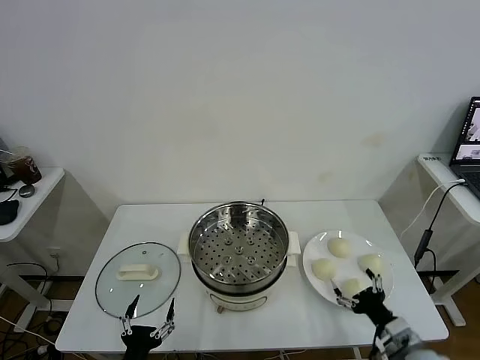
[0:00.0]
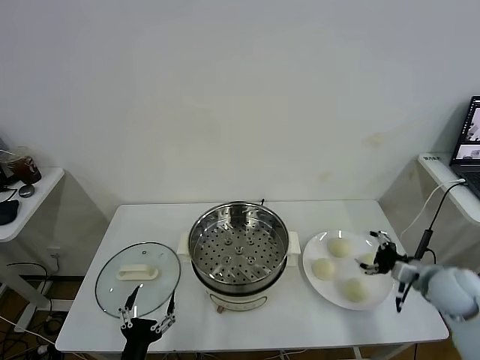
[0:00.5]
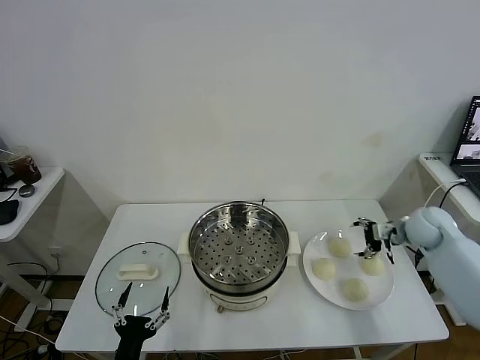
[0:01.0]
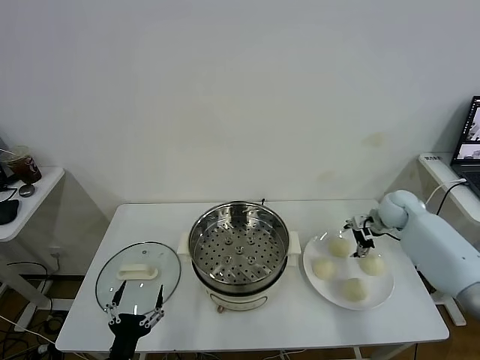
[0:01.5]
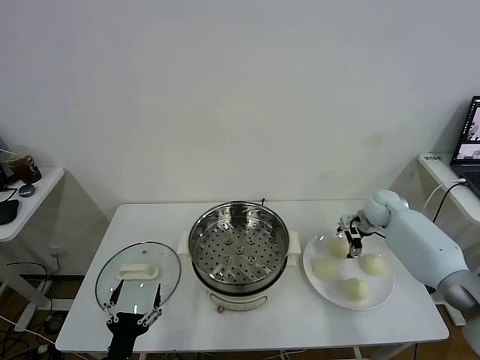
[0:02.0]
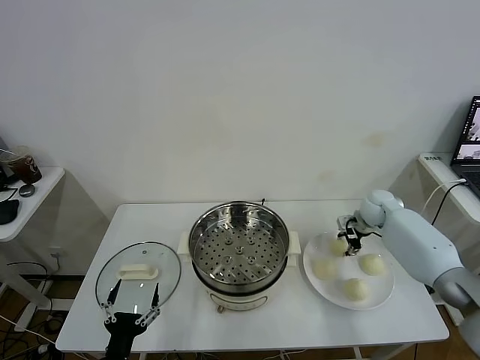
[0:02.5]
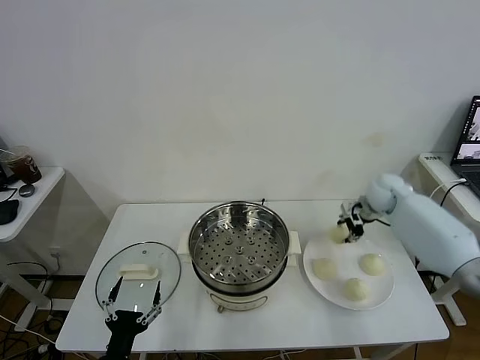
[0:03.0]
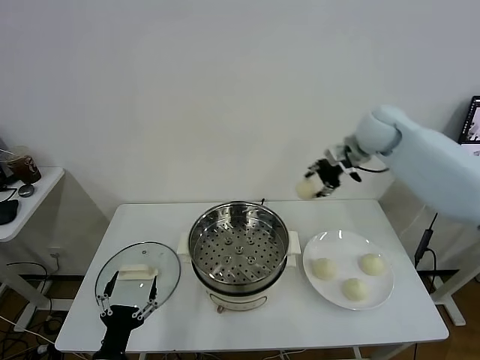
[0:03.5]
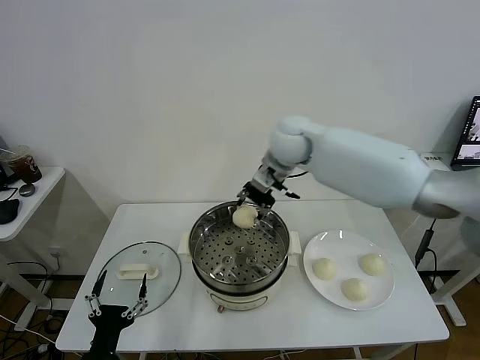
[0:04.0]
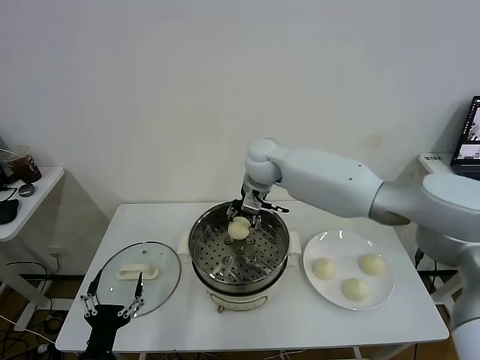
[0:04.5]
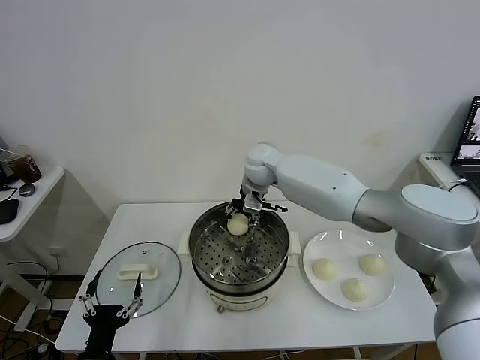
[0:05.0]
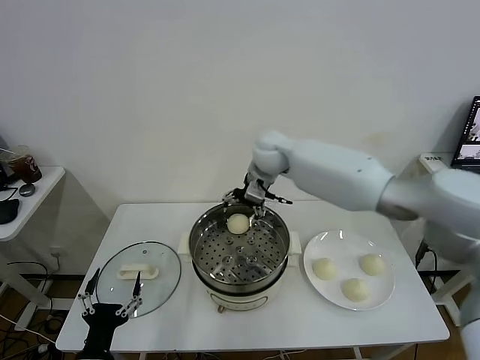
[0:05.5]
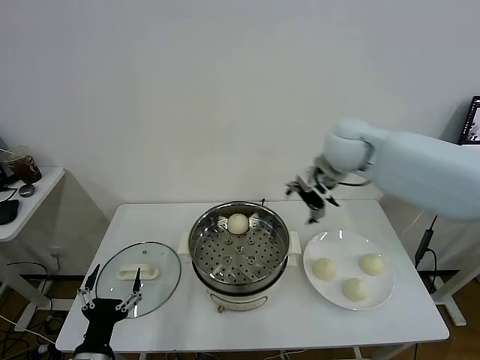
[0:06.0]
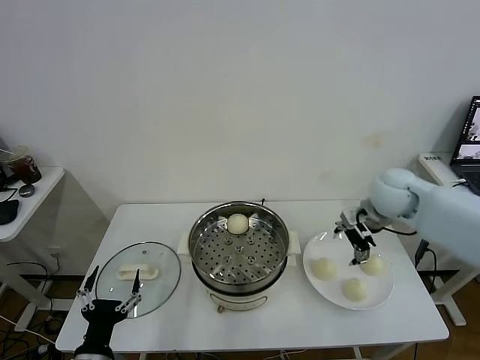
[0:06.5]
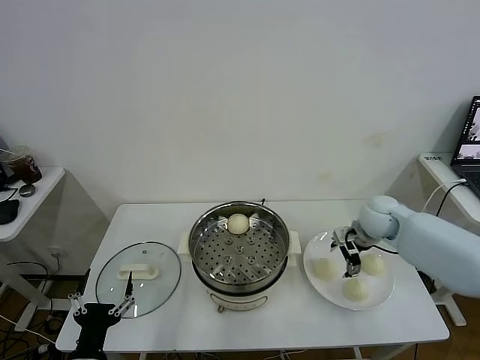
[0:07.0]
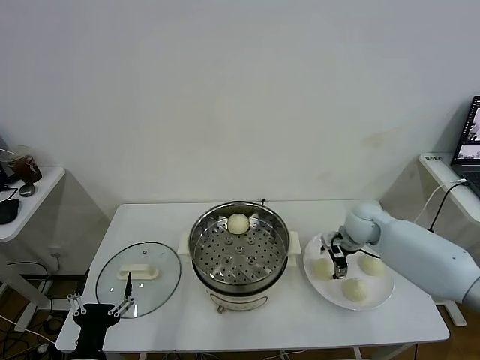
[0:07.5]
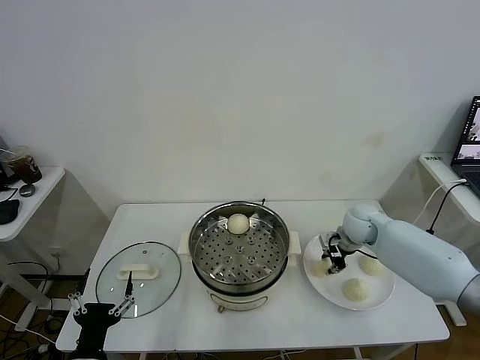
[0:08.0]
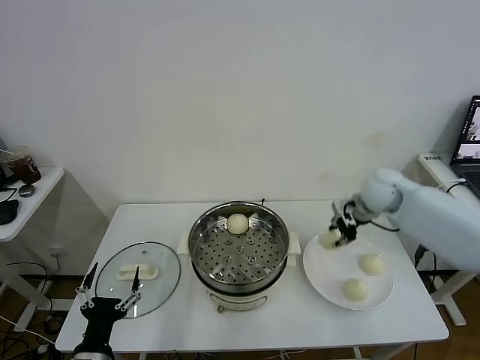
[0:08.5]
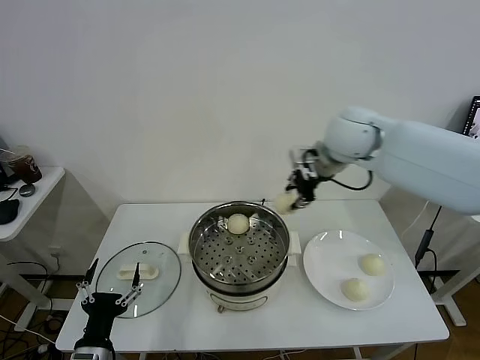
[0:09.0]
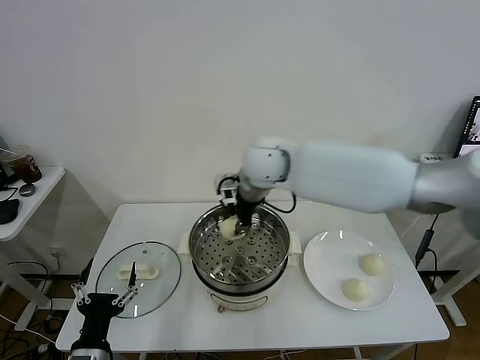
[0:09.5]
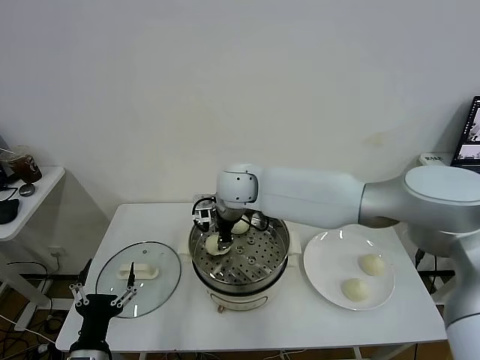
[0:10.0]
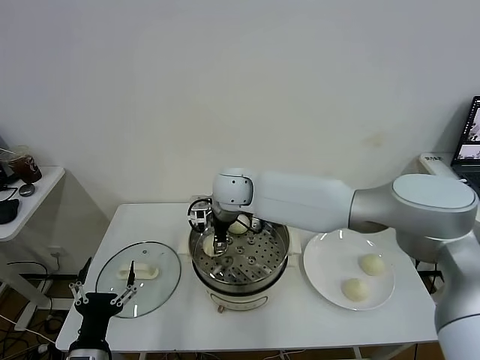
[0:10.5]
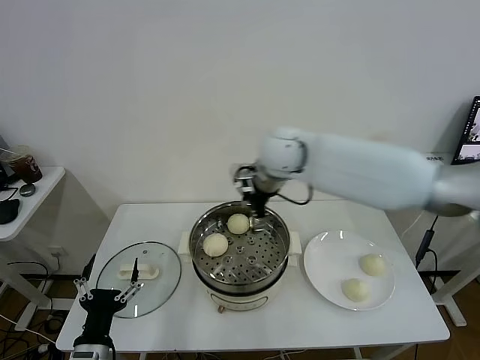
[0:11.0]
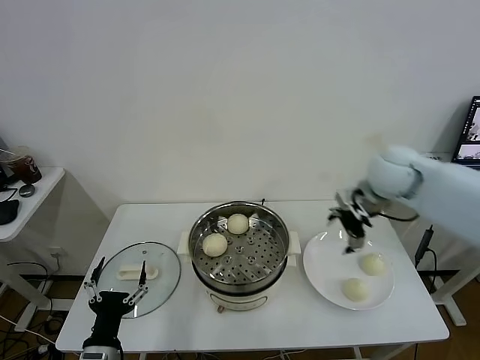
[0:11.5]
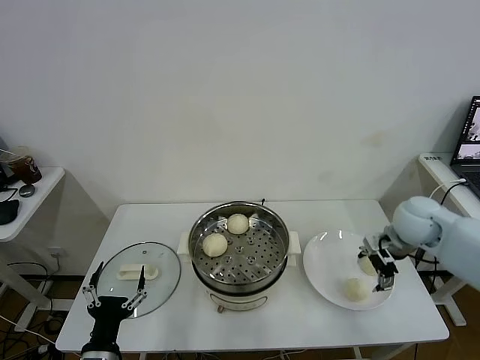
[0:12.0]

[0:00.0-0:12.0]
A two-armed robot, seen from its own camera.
Task of the whole recording: take steamed baozi put them in steamer.
Step, 0:00.0 to 0:02.0: Grasp the baozi in the plate with right gripper.
Step, 0:02.5 to 0:05.0: Place the baozi on the steamer with right gripper.
Step, 0:05.5 to 0:07.5: Grasp the baozi in the plate with right gripper.
Step, 0:08.0 to 0:10.5: Place the baozi on the steamer with right gripper.
0:02.0 to 0:04.0: The right gripper goes some 35 cm to the left and upward, and closes up.
0:04.0 to 0:06.0: The right gripper moves to the right, about 10 cm, and opens.
0:06.0 to 0:08.0: The right gripper moves downward and to the right, about 25 cm, and closes its fingers.
0:08.0 to 0:10.0: The right gripper is displaced to the left and upward by approximately 35 cm.
0:10.0 to 0:12.0: The right gripper travels to the right by some 40 cm, and opens its fingers.

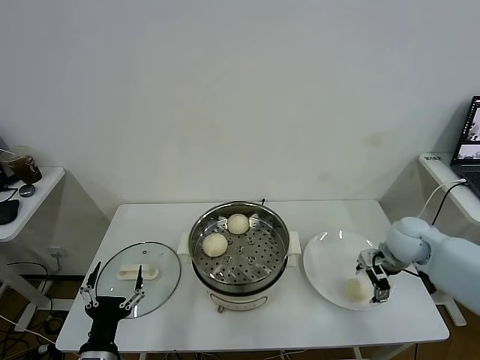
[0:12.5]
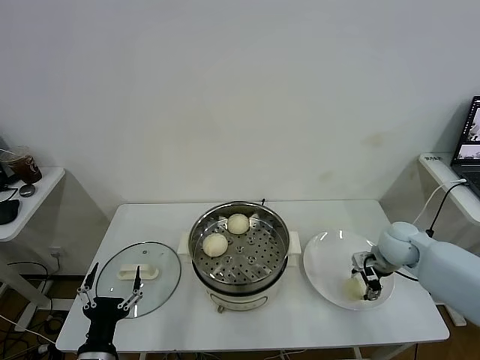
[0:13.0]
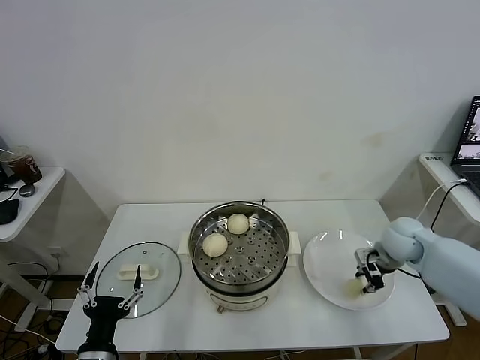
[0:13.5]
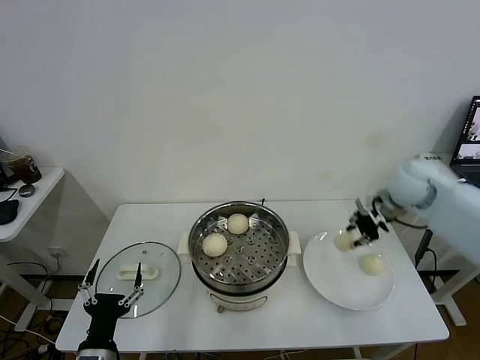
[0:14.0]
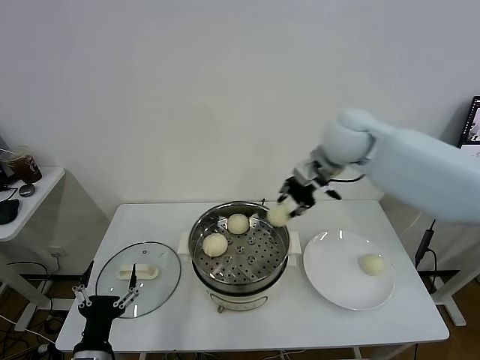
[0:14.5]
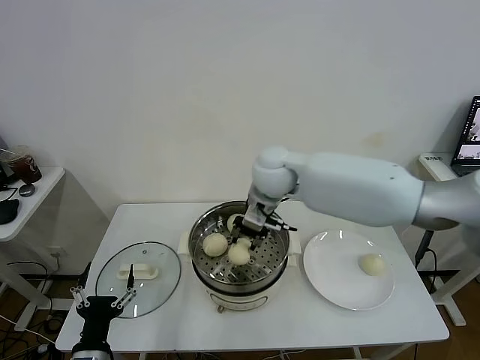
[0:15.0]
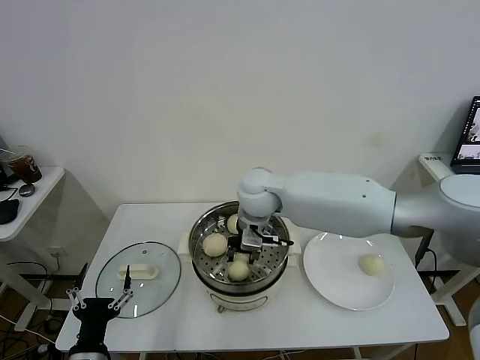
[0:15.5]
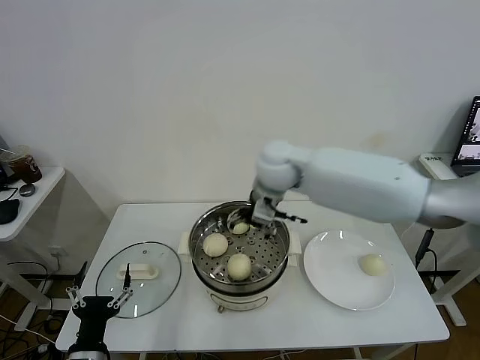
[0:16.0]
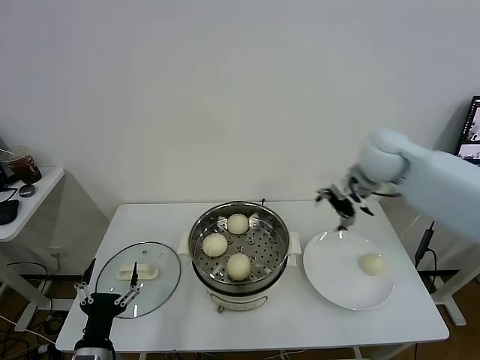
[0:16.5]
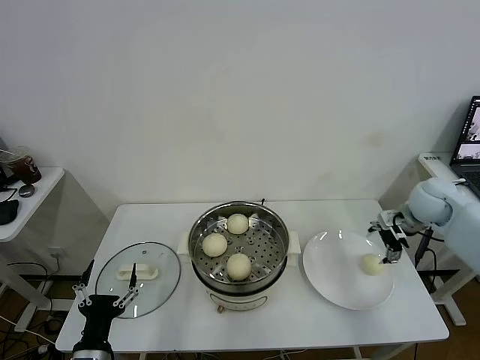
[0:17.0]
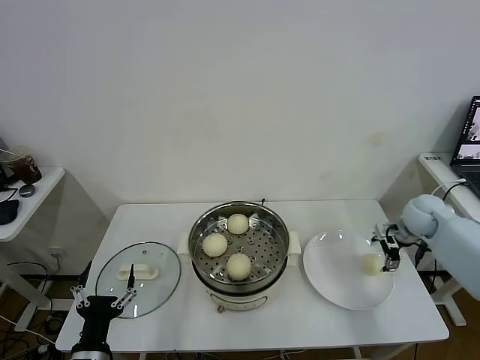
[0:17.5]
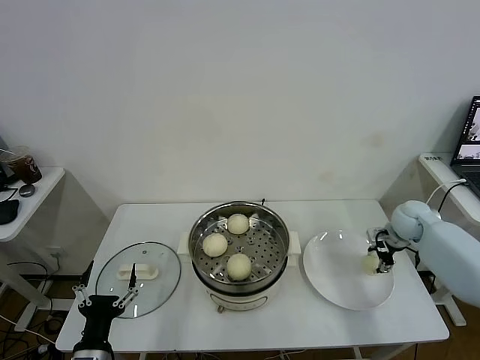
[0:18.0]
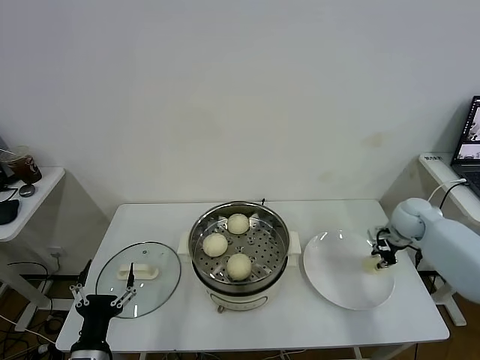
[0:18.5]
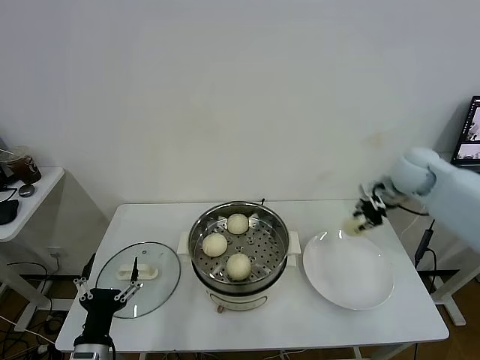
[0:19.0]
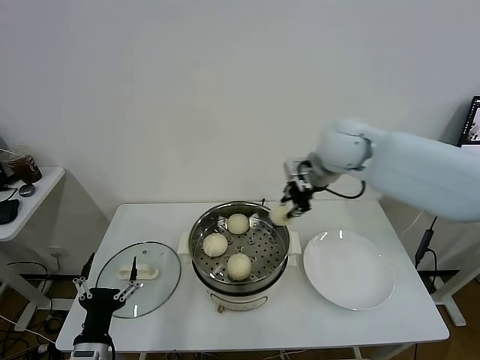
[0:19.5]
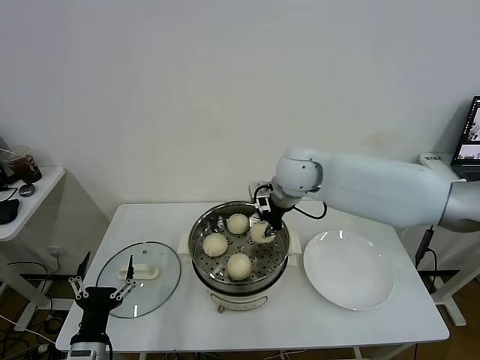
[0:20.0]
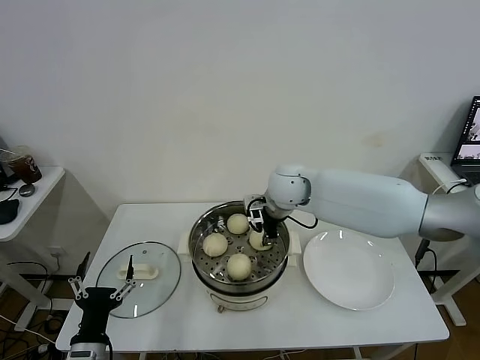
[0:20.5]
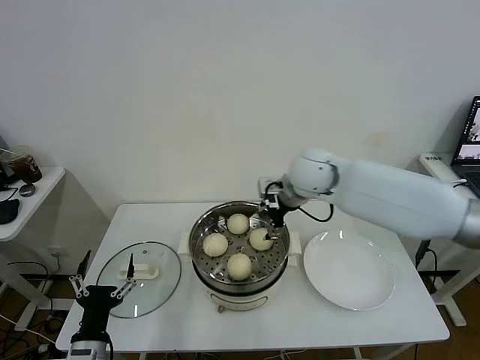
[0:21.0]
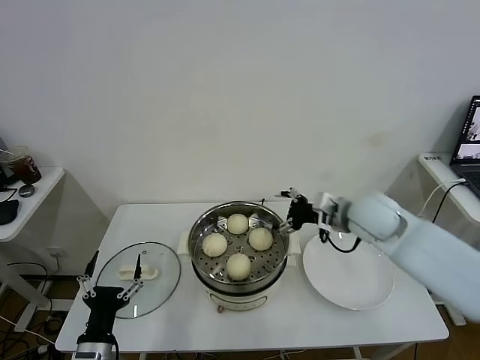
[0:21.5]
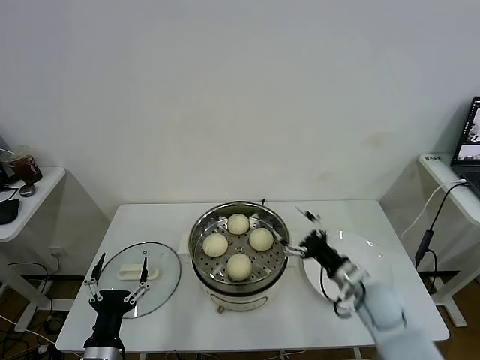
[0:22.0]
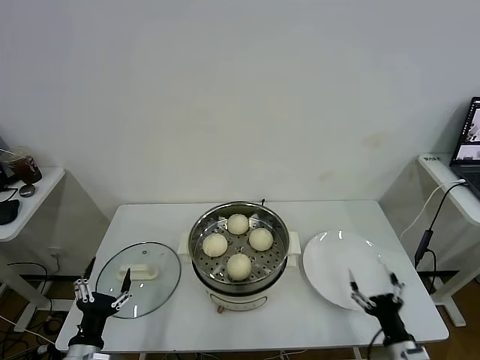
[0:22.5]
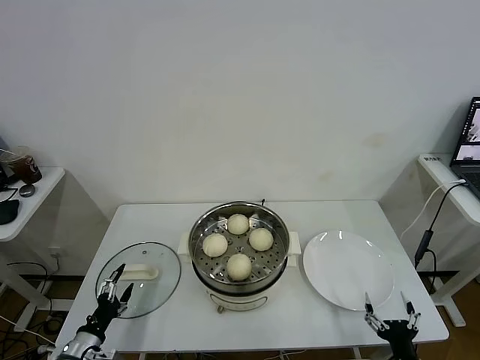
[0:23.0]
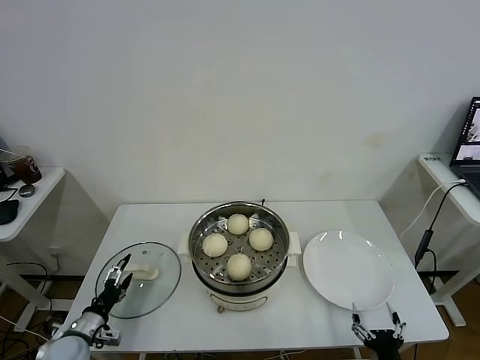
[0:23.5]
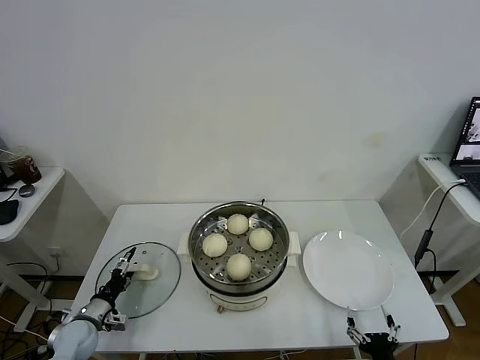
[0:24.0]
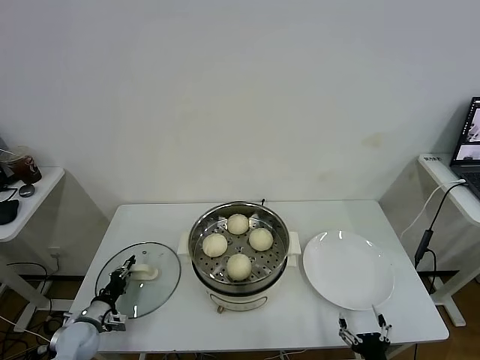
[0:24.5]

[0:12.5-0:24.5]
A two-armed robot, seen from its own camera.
Task of the whole recording: take steamed baozi put them in steamer.
Step, 0:13.5 to 0:15.5: Place the baozi on the steamer with right gripper.
Step, 0:16.0 to 0:18.0: Grasp the baozi in the plate with right gripper.
Step, 0:18.5 to 0:20.5: Place the baozi on the steamer with right gripper.
0:12.5 to 0:14.5: The right gripper moves upward and to the left, some 30 cm, and closes.
0:14.5 to 0:16.5: The right gripper reaches about 15 cm to the left, then returns, and opens up.
0:16.5 to 0:18.5: The right gripper goes roughly 25 cm downward and to the right, and closes up.
0:18.5 to 0:20.5: The right gripper is displaced to the left by roughly 35 cm.
0:20.5 to 0:22.5: The right gripper shifts roughly 50 cm backward, downward and to the right, and opens up.
0:22.5 to 0:24.5: The left gripper heads forward, downward and to the left, covering approximately 20 cm, and closes up; the right gripper shifts about 10 cm backward.

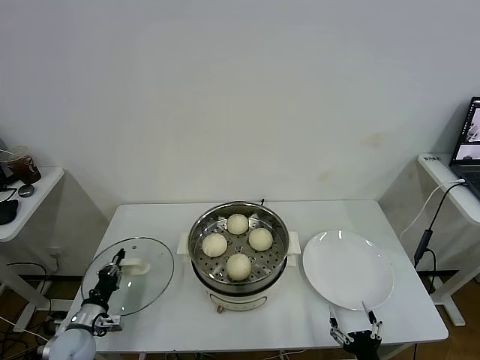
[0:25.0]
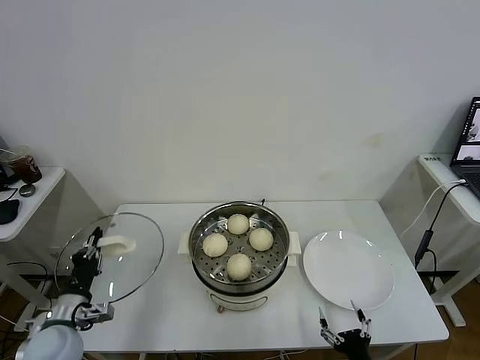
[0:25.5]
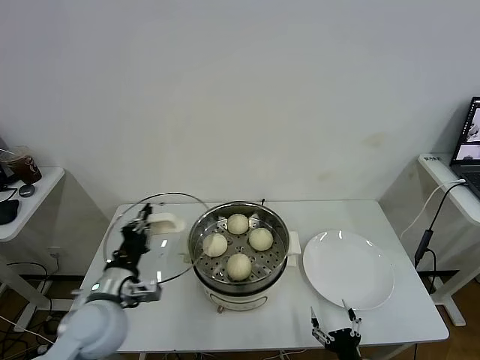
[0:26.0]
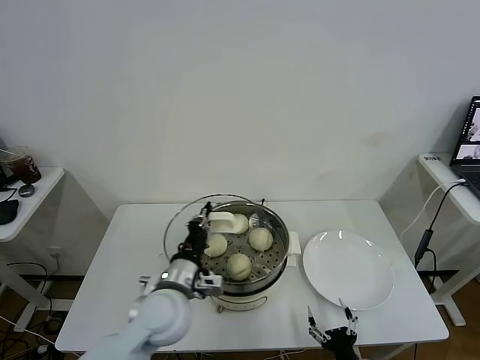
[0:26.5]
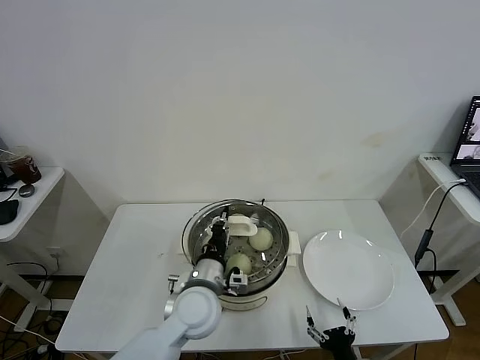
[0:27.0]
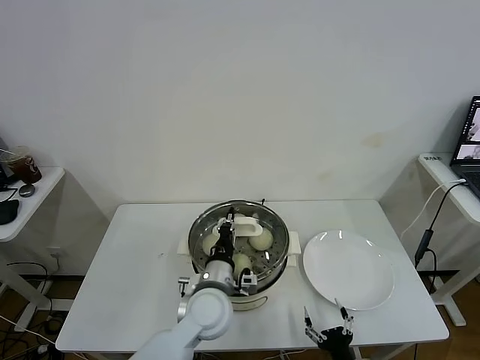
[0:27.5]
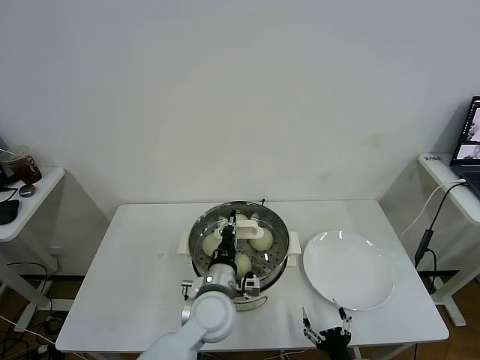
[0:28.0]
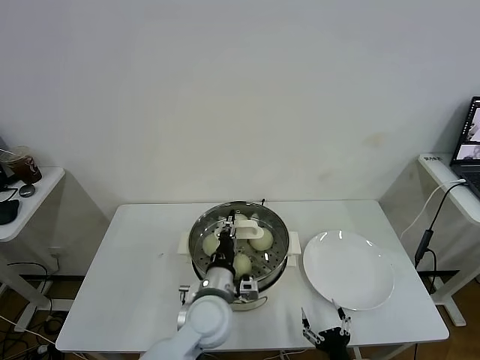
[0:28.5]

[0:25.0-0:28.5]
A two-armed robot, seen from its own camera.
Task of the whole recording: take steamed baozi put them in steamer.
0:25.0 to 0:27.0: The left gripper goes some 35 cm to the right and upward.
0:27.0 to 0:28.5: The grippers make only small movements.
